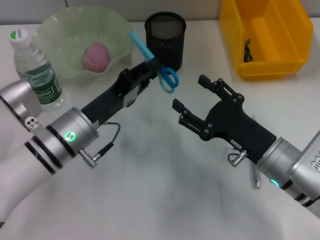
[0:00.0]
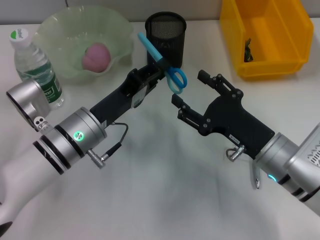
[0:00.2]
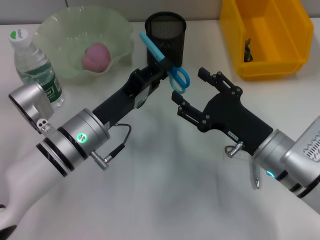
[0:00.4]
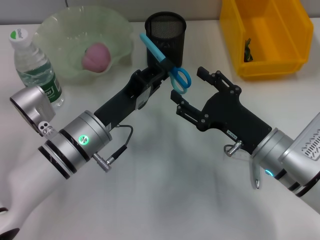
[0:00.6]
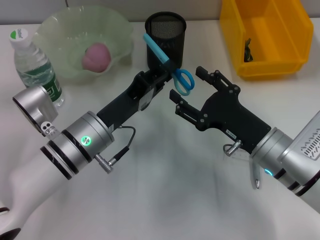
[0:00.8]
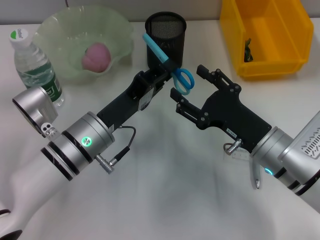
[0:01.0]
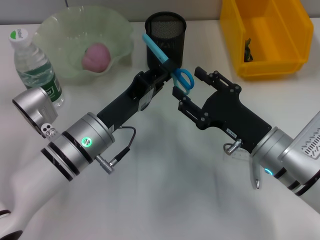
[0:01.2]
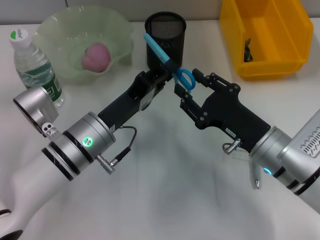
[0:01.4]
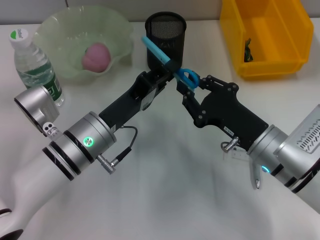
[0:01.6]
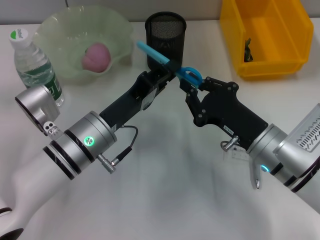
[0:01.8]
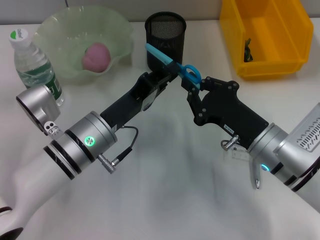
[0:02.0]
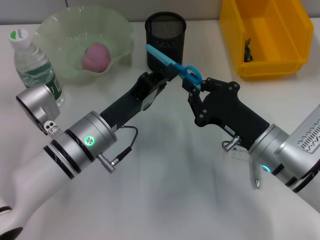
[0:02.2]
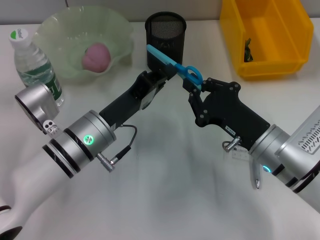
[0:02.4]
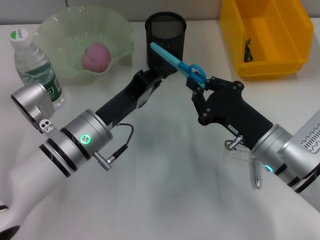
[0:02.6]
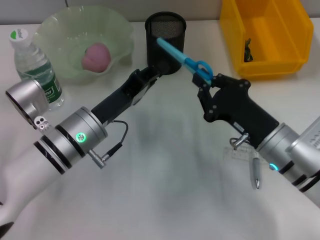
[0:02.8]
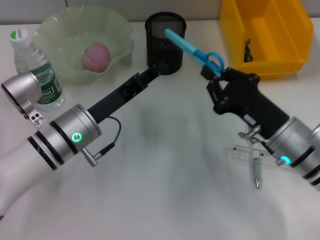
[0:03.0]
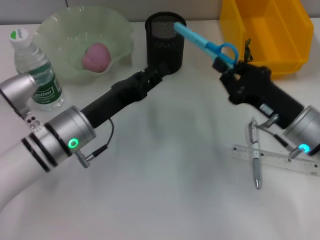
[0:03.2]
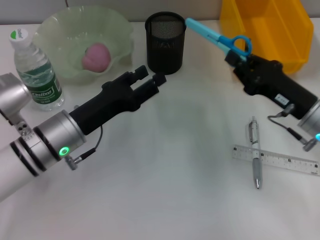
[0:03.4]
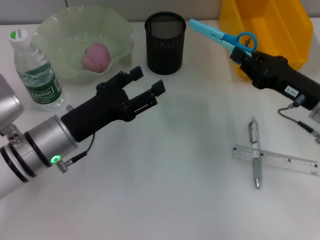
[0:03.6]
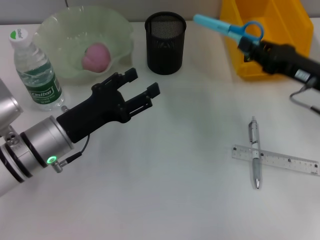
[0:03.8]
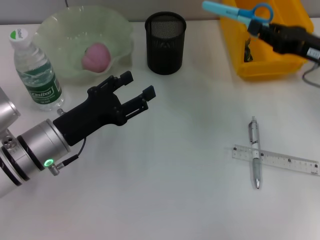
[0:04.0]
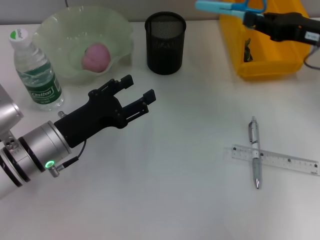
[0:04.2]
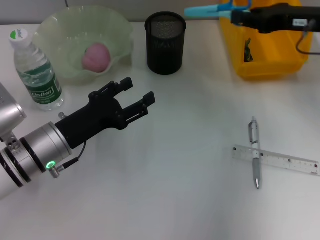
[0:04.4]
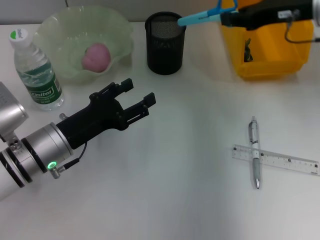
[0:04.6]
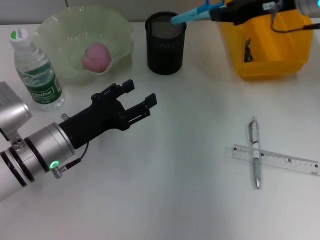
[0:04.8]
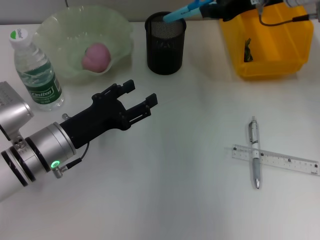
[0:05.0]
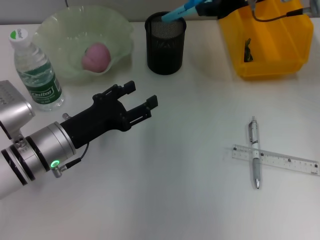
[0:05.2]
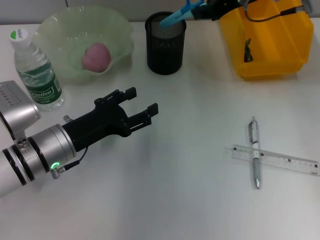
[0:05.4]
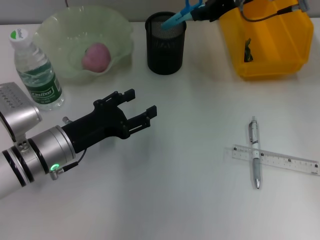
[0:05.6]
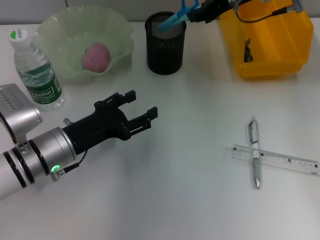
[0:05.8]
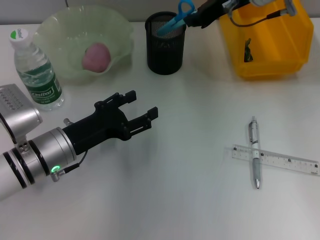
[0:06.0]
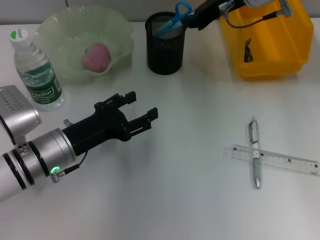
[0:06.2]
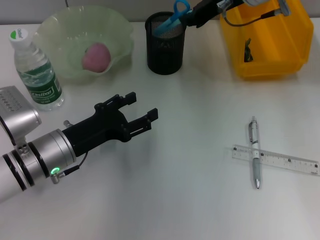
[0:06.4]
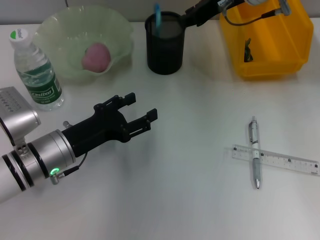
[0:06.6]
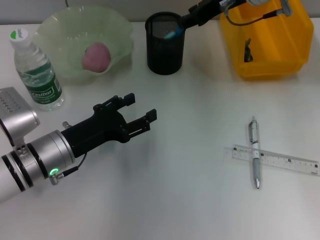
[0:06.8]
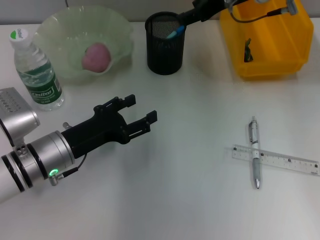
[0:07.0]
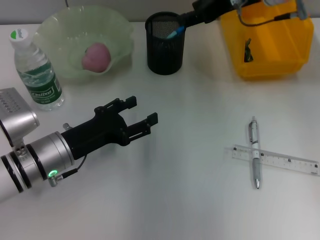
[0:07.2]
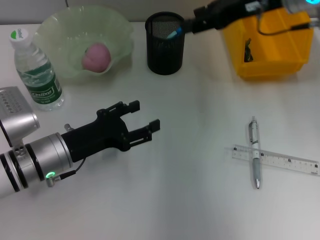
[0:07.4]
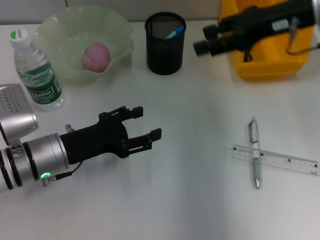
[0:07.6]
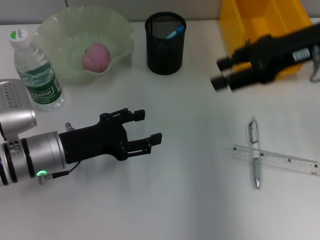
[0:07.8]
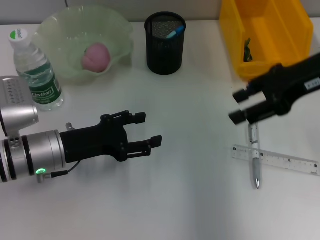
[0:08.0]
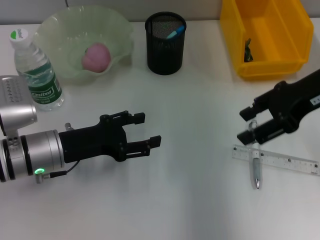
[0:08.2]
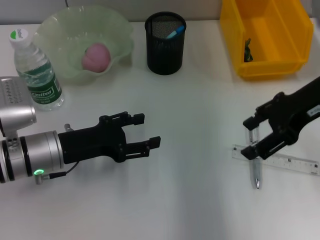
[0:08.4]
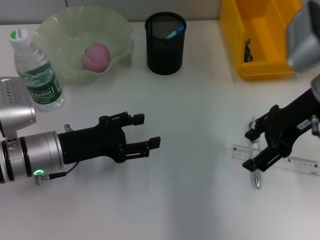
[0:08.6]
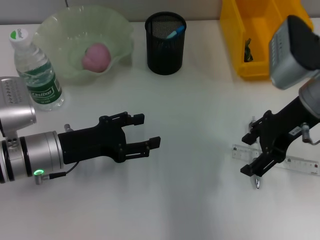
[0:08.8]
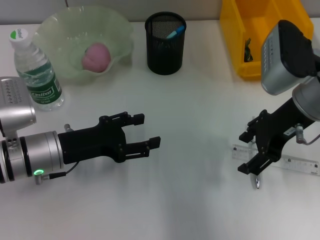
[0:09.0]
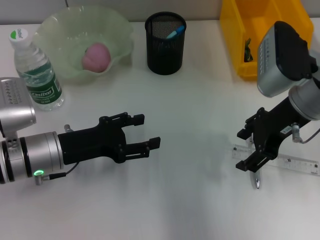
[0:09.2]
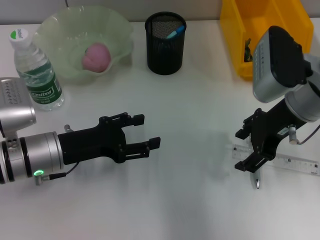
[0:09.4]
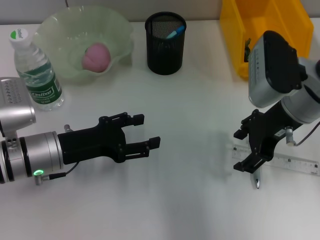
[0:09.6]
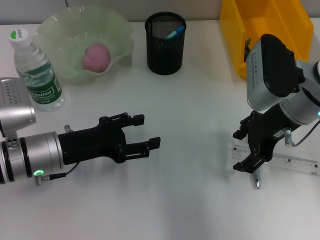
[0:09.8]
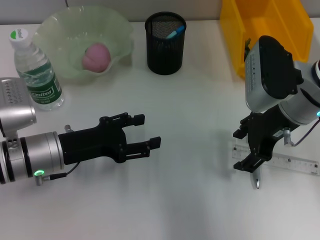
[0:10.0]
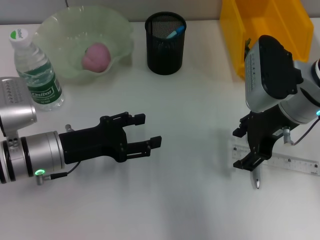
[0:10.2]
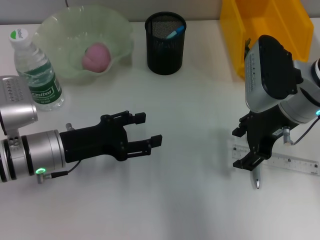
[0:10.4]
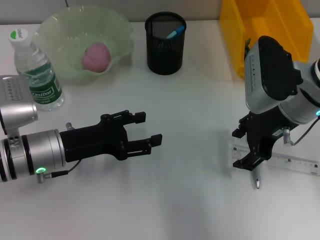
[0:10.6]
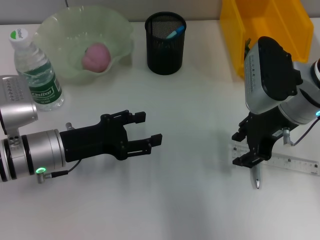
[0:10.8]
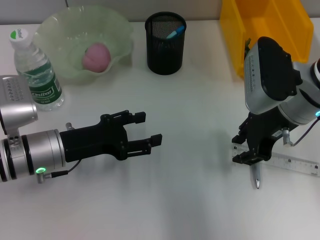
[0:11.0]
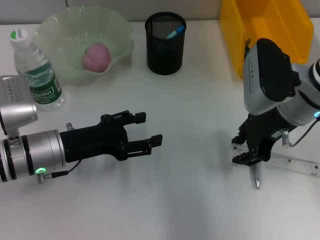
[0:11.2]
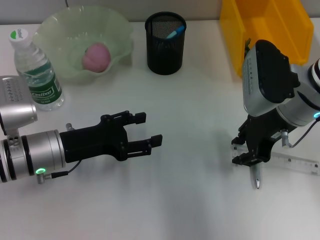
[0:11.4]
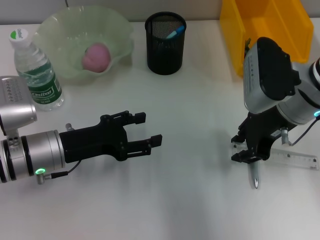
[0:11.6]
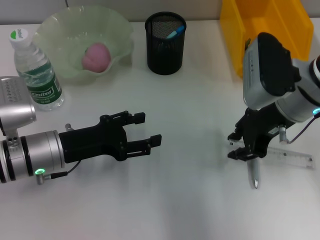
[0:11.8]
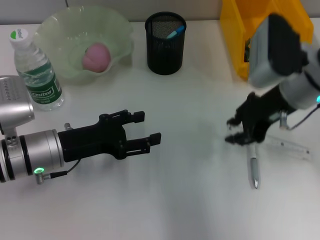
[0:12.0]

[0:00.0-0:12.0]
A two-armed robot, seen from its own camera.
Step, 0:00.0 to 0:02.4: Pass the blue scissors from the left hand to the right hand.
Step, 0:02.6 to 0:07.0: Place the blue scissors into the pen holder with the right hand.
Step, 0:07.2 to 0:11.4: Grab the ruler with the right hand.
0:00.0 to 0:01.6: The right gripper closes its fingers.
0:01.6 to 0:03.0: The right gripper closes up.
0:03.0 to 0:04.4: The right gripper goes about 20 cm upward, forward and to the right; the left gripper opens its fingers.
0:04.4 to 0:06.0: The right gripper is displaced to the left and forward by about 15 cm.
0:06.0 to 0:07.6: The right gripper travels backward and to the right by about 10 cm, and opens its fingers.
0:07.6 to 0:09.0: The right gripper goes approximately 5 cm downward.
0:09.0 to 0:10.4: The grippers stay close to where they were, moving slightly.
0:10.4 to 0:12.0: The right gripper closes up.

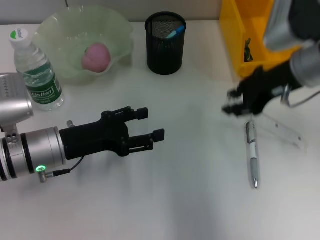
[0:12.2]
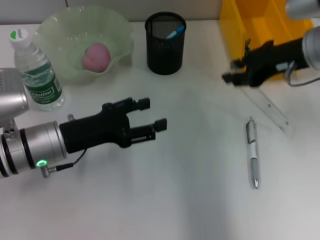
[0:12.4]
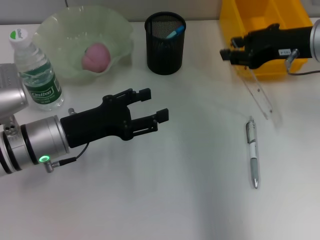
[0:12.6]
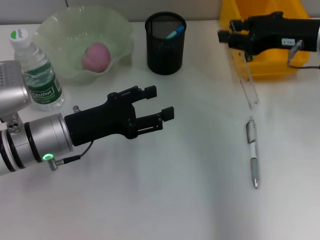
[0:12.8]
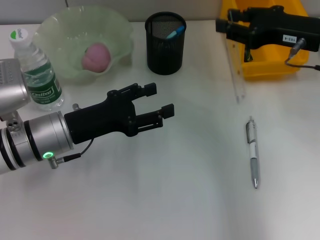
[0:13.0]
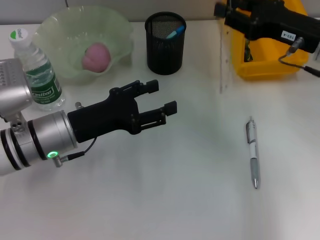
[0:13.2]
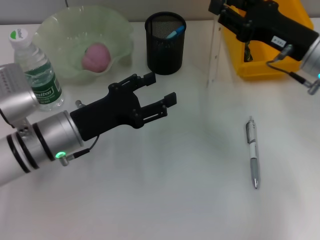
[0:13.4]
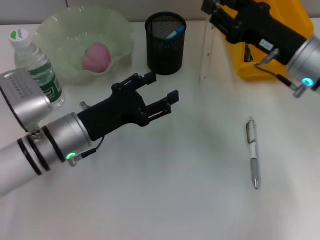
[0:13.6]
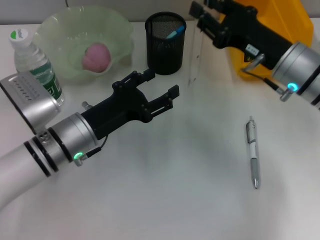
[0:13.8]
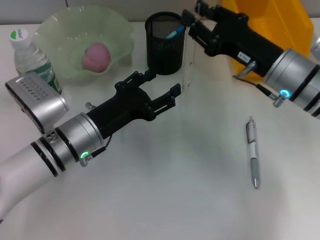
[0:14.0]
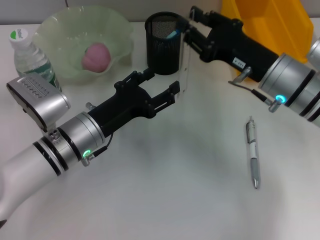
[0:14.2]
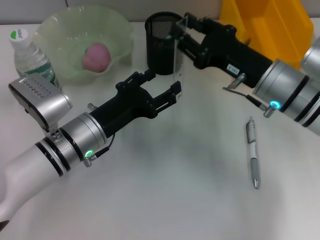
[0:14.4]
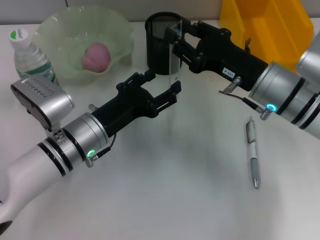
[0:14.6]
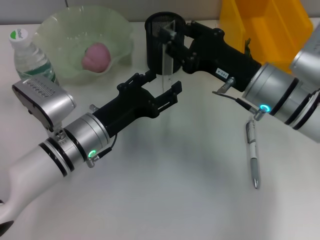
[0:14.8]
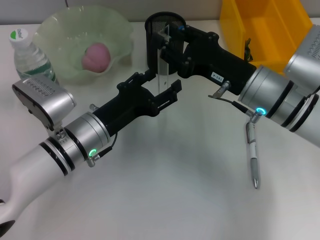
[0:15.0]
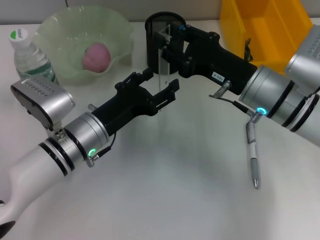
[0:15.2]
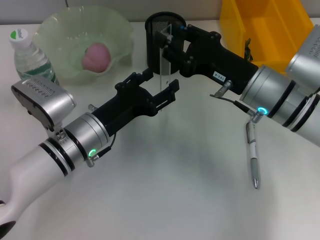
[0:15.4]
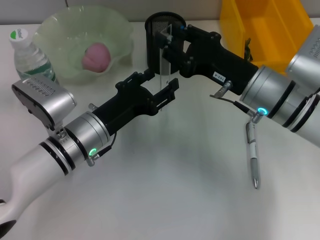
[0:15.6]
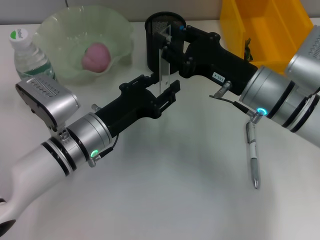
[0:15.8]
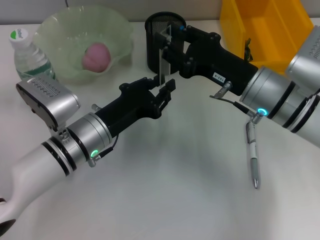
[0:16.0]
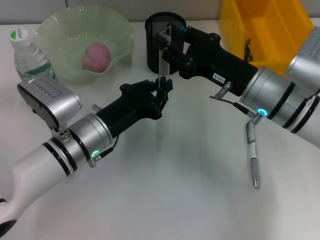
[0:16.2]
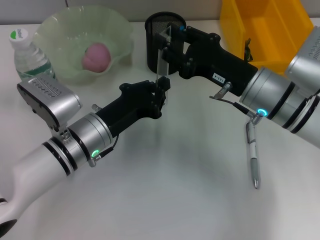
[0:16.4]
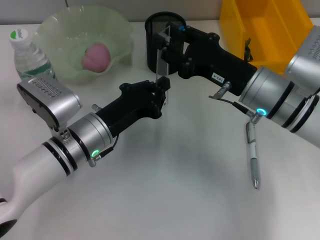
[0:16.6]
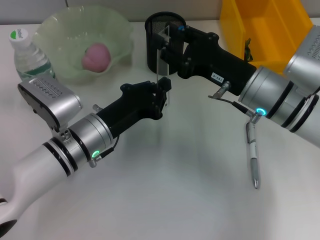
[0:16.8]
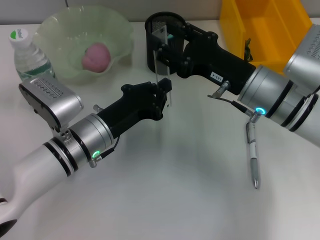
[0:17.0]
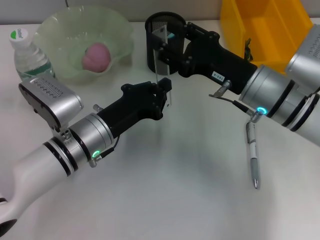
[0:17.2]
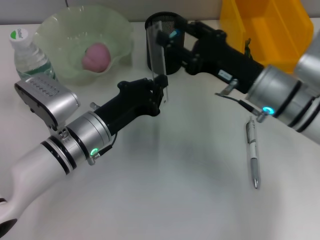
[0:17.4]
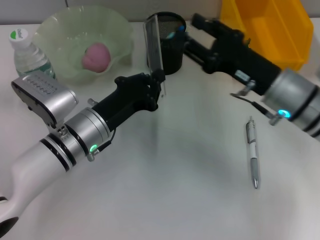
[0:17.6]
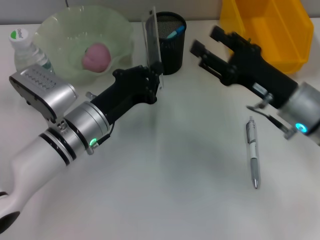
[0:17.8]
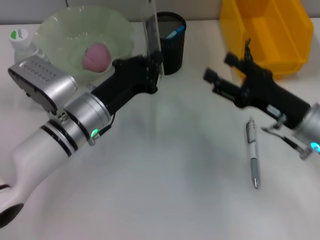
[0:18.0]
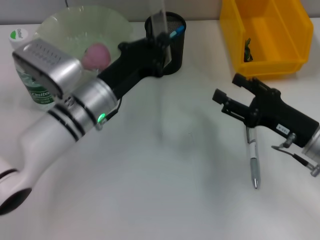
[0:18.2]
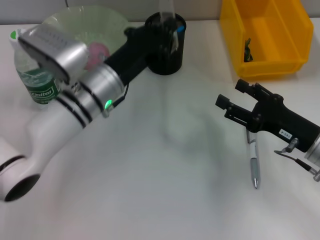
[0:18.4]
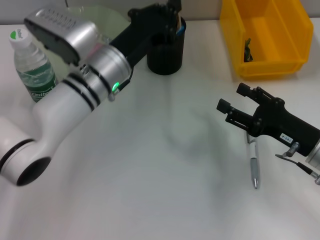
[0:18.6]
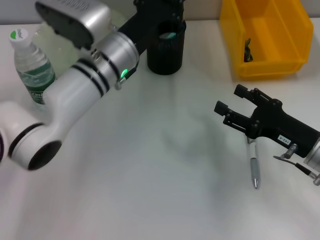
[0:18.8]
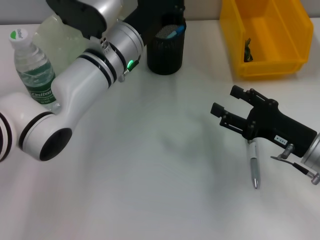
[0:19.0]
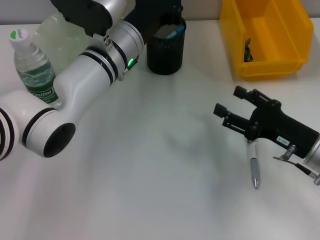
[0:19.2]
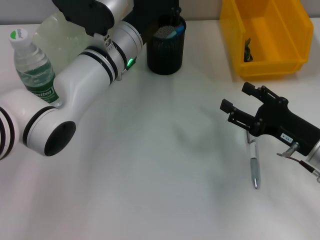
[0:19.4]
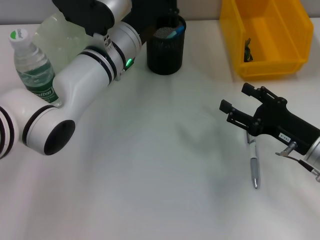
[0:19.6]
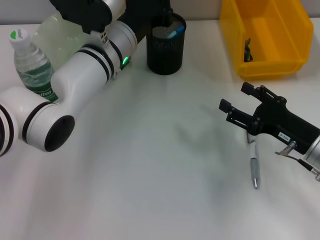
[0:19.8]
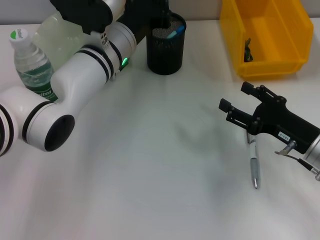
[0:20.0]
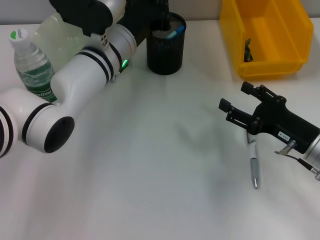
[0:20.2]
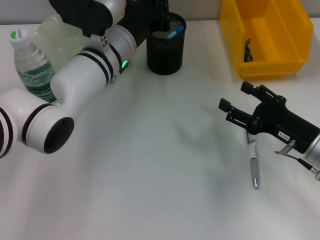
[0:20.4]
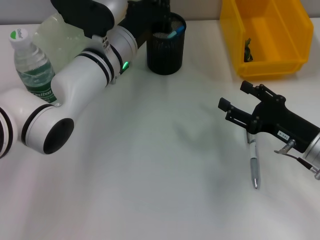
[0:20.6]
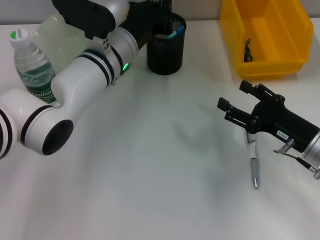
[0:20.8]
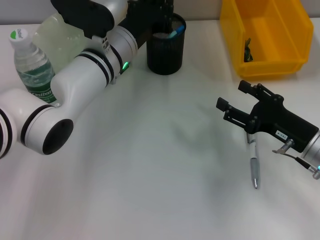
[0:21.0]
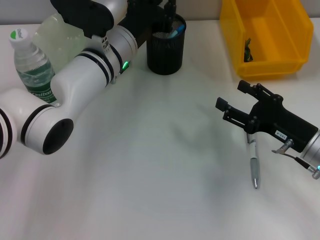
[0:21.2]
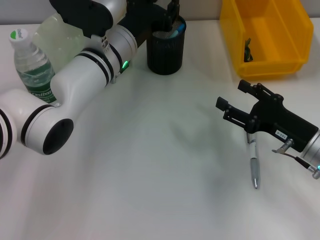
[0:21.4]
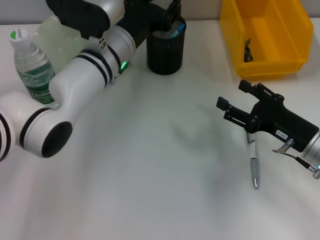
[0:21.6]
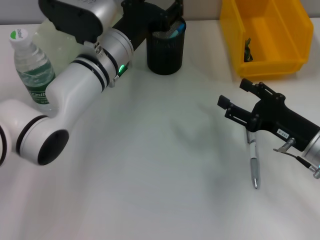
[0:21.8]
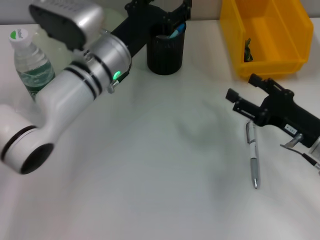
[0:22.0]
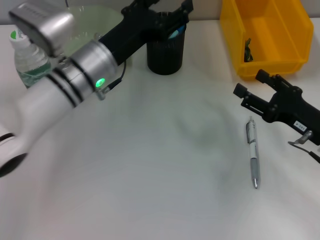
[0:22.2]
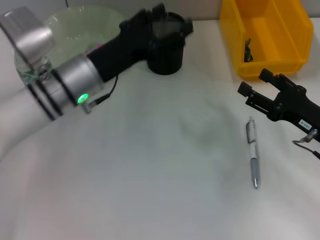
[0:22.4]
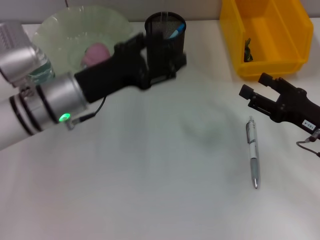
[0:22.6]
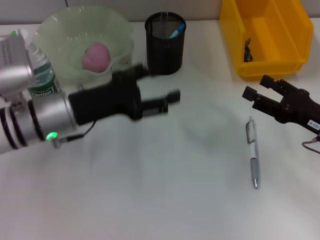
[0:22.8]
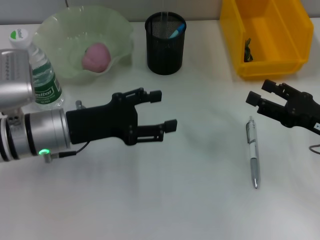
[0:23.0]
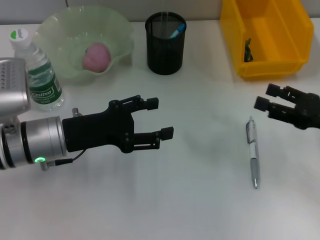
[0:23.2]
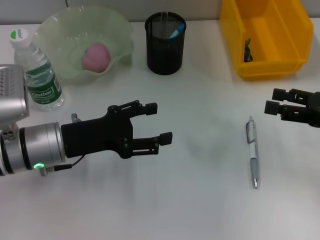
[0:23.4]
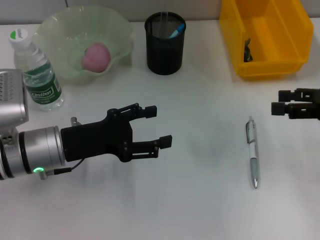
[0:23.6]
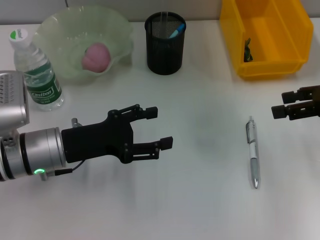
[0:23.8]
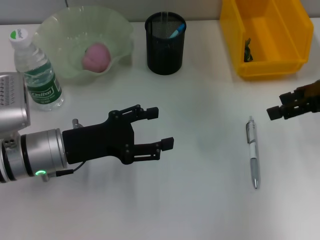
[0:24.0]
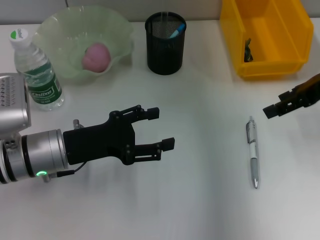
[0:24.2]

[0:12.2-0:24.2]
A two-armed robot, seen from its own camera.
Step, 0:12.2 to 0:17.4: Pass the ruler from the right hand to the left hand.
Step, 0:17.6 to 0:21.8: Place the ruler into the pen holder with the left hand.
0:12.2 to 0:13.8: The right gripper shifts some 5 cm downward.
0:15.2 to 0:16.6: The left gripper closes.
0:16.6 to 0:18.2: The left gripper shifts by roughly 5 cm. The right gripper goes roughly 10 cm to the right, backward and downward, and opens its fingers.
0:18.2 to 0:19.8: The left gripper travels forward by approximately 5 cm.
0:19.8 to 0:21.2: Neither gripper changes place.
0:21.2 to 0:22.6: The left gripper travels to the left and backward by roughly 10 cm, and opens up.
0:22.6 to 0:24.2: The left gripper moves backward, some 5 cm. The right gripper moves upward and forward, about 20 cm.
